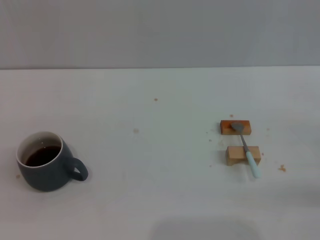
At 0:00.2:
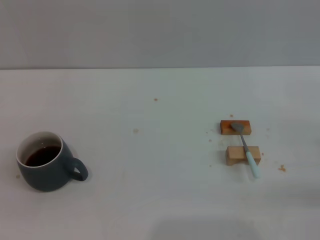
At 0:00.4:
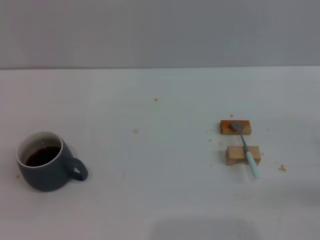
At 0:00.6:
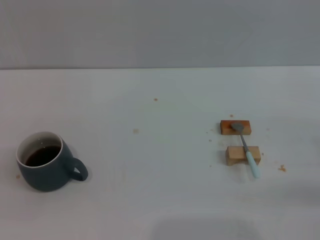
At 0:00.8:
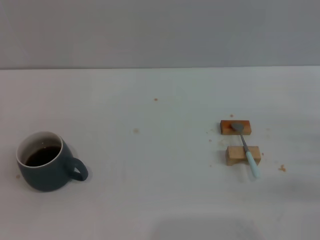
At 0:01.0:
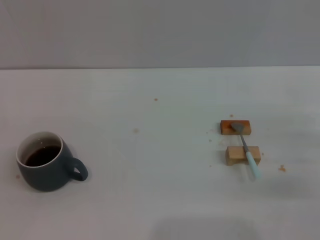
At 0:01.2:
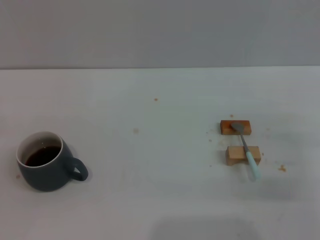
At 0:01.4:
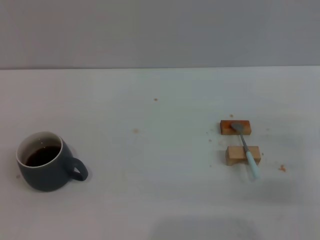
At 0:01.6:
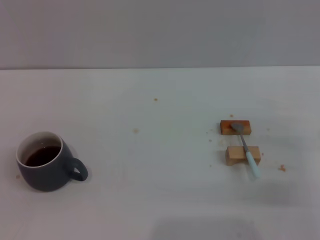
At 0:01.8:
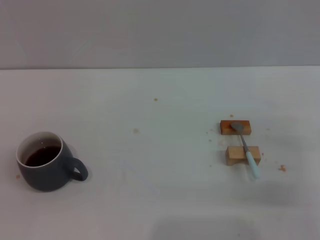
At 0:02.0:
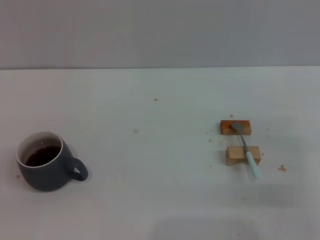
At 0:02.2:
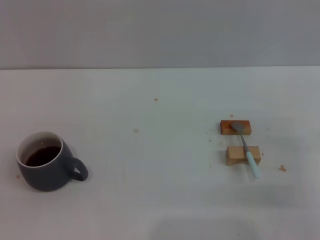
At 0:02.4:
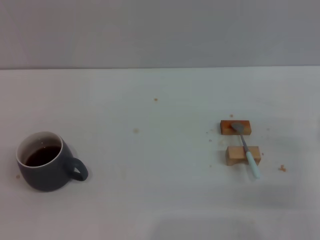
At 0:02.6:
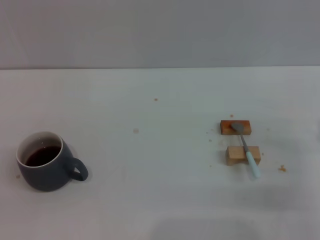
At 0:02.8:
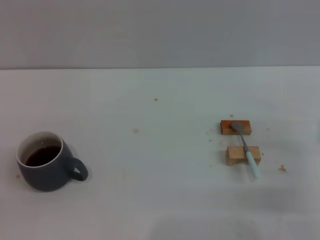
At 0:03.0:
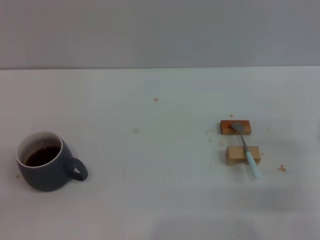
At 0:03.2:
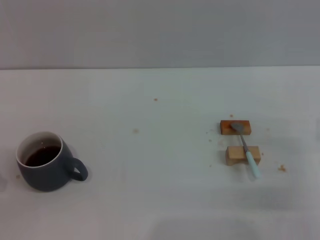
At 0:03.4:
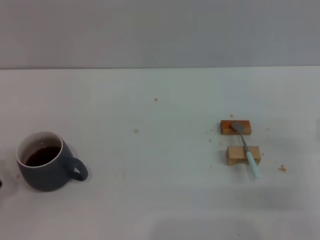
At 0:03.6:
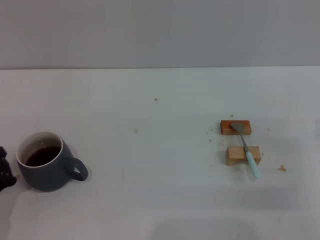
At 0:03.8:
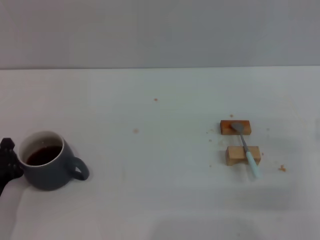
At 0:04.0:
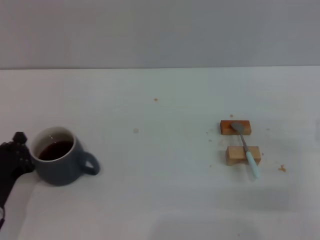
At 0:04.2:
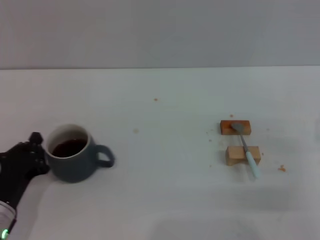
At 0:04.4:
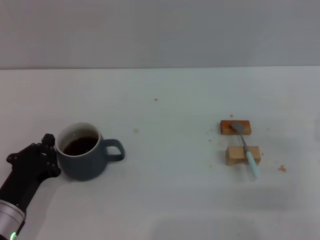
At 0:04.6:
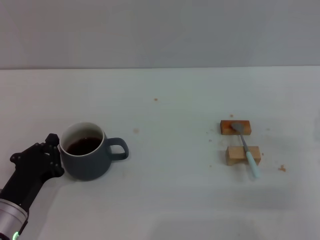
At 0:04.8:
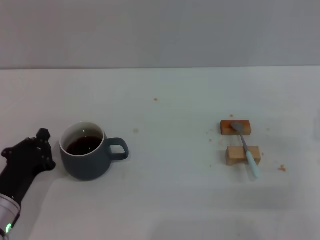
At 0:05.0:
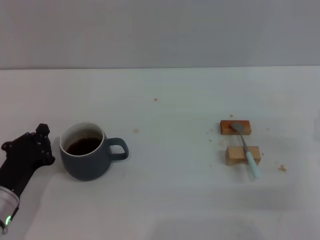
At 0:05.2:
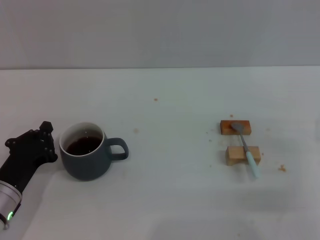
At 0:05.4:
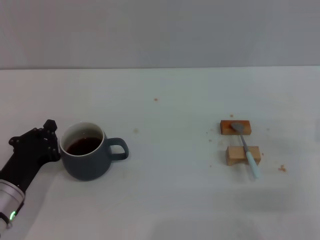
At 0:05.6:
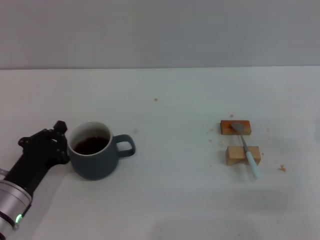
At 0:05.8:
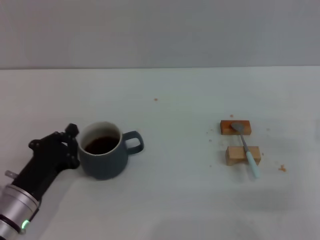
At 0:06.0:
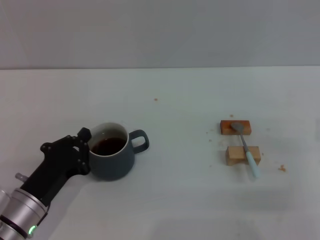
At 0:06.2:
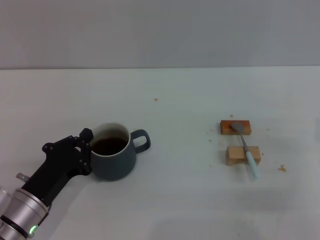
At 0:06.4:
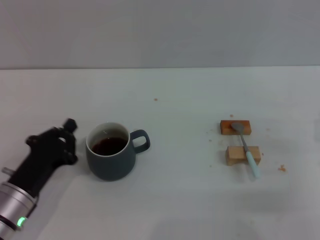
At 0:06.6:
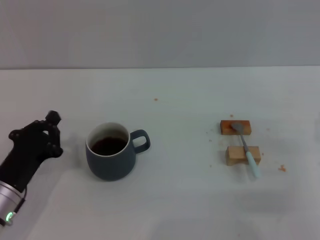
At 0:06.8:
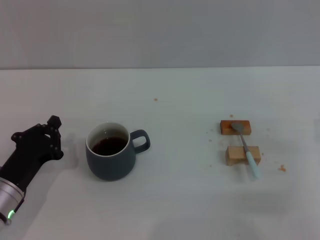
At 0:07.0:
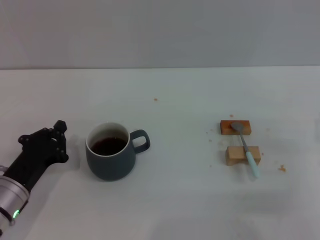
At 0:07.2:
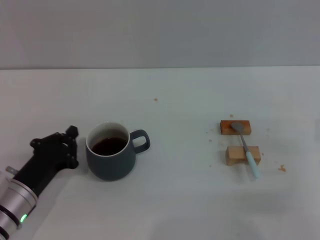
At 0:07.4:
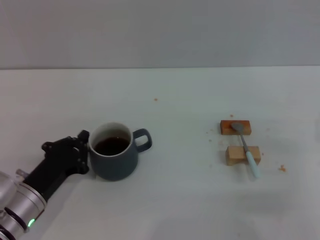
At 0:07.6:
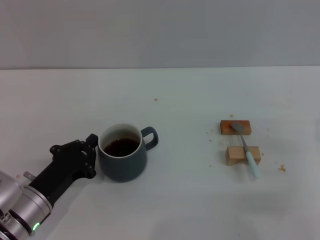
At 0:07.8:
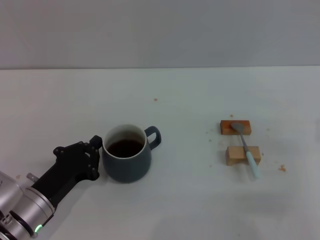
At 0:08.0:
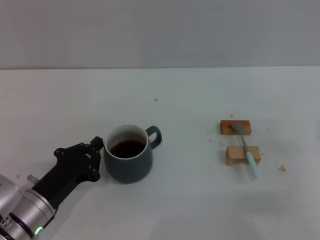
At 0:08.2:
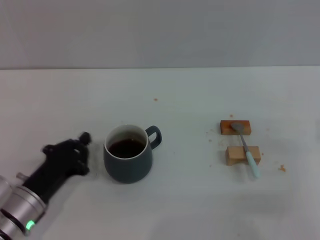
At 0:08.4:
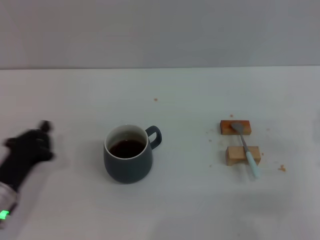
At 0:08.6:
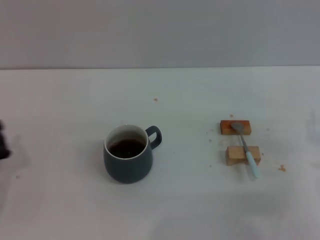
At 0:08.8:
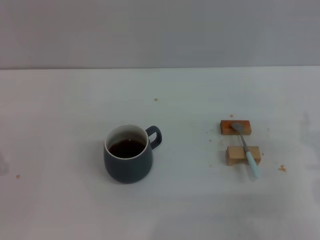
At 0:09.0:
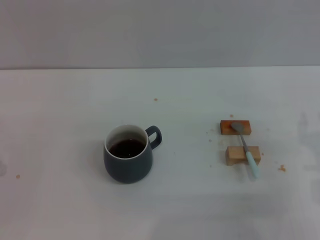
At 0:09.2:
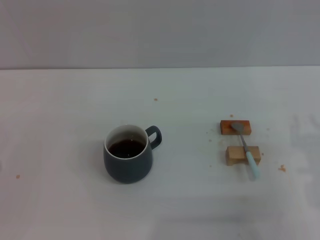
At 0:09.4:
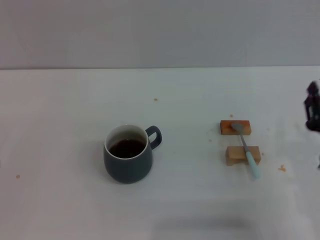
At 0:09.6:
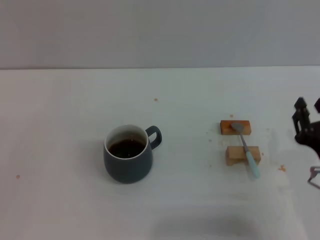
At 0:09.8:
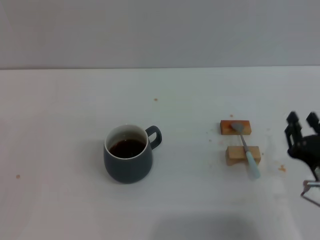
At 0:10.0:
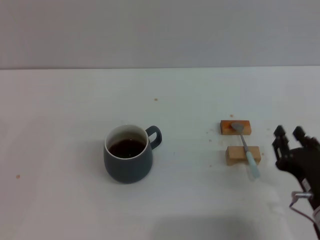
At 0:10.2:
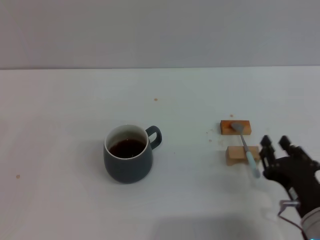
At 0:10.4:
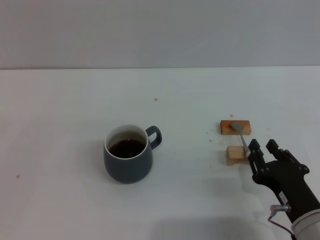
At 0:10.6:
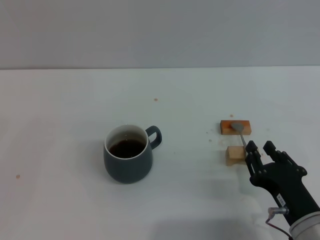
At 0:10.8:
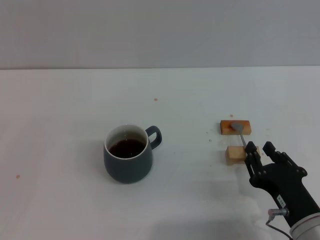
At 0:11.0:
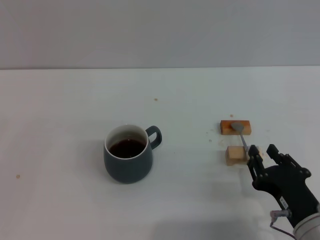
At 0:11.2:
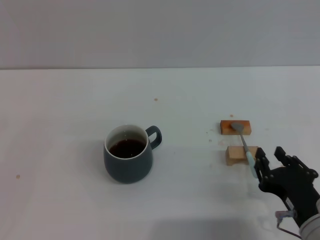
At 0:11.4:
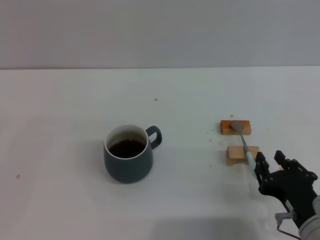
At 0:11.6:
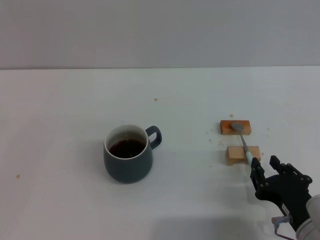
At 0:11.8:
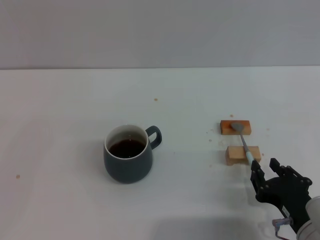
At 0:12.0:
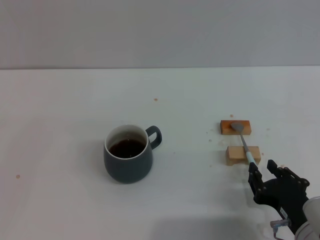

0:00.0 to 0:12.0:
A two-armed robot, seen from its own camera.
Task of the whole recording: Move the grey cup to the center, lift the blue spoon, stir it three times in the cup, and put the spoon into the cup.
Step, 0:00.0 to 0:06.4: Move the cup with coffee to the center of view with the left gripper.
0:03.0 to 0:04.4: The left gripper travels to the right by roughly 10 cm.
0:04.4 to 0:07.6: The grippers stay close to where they were, moving slightly.
0:07.6 to 0:09.0: The left gripper is displaced to the left by some 10 cm.
0:09.0 to 0:10.4: The right gripper travels to the left, backward and downward by some 10 cm.
0:10.4 to 0:12.0: The grippers move only a little.

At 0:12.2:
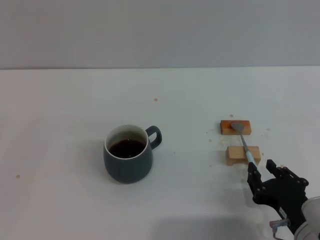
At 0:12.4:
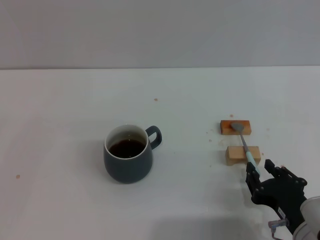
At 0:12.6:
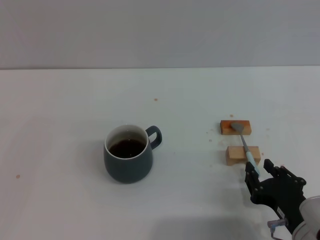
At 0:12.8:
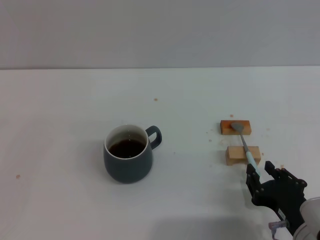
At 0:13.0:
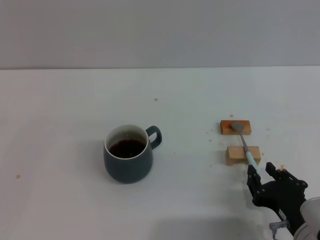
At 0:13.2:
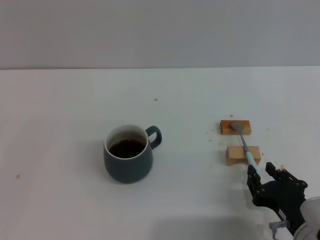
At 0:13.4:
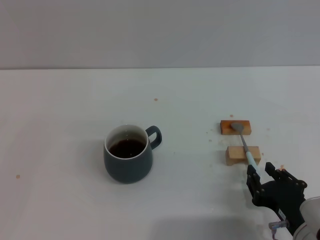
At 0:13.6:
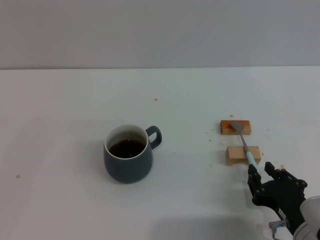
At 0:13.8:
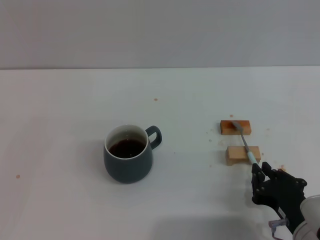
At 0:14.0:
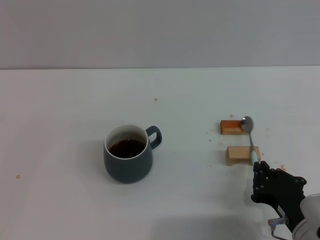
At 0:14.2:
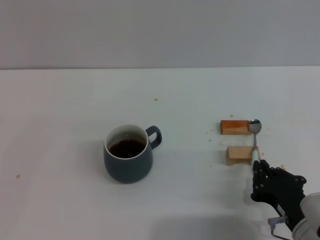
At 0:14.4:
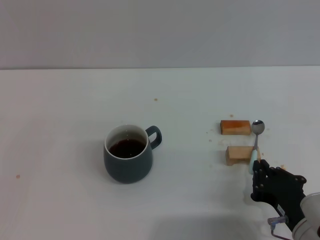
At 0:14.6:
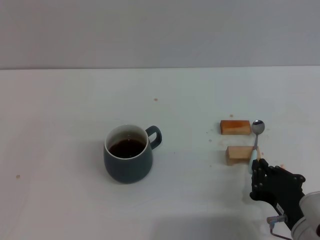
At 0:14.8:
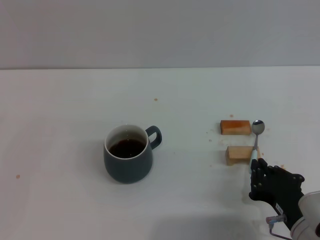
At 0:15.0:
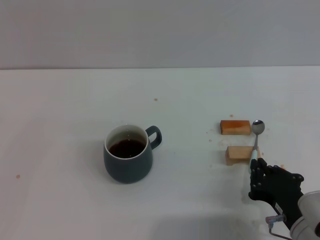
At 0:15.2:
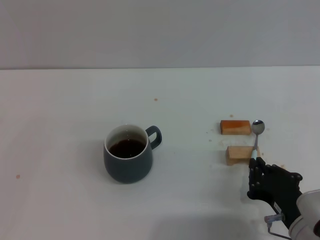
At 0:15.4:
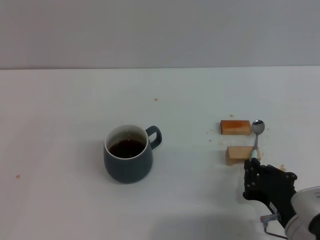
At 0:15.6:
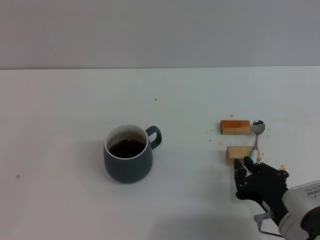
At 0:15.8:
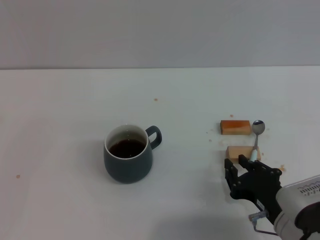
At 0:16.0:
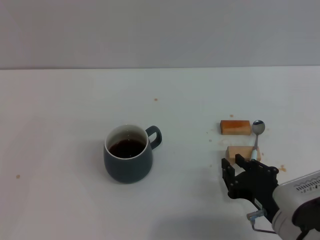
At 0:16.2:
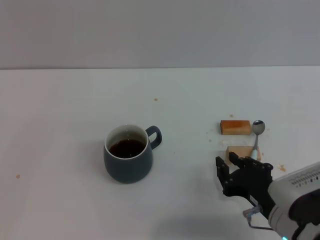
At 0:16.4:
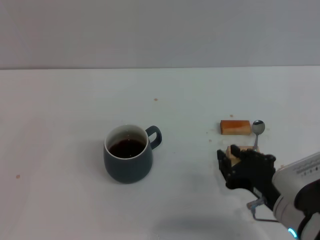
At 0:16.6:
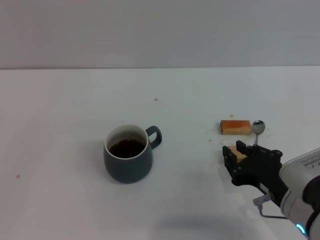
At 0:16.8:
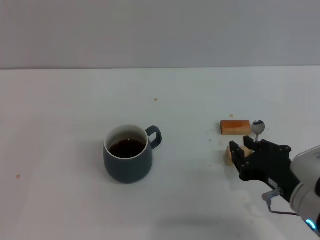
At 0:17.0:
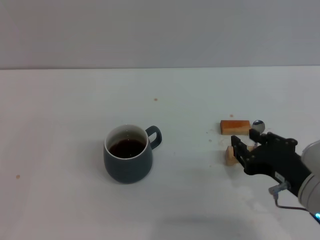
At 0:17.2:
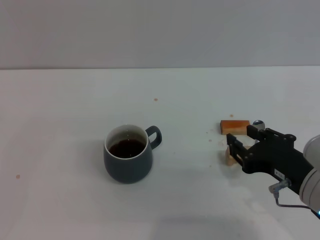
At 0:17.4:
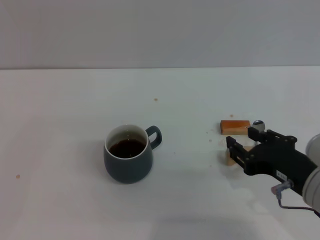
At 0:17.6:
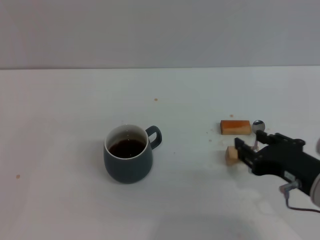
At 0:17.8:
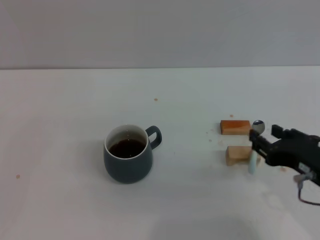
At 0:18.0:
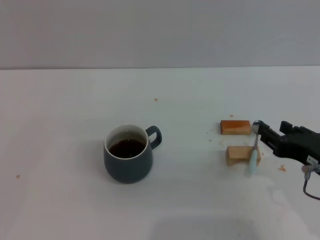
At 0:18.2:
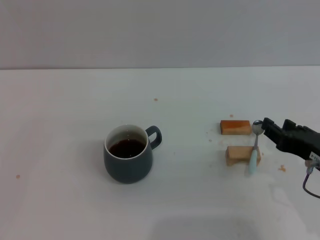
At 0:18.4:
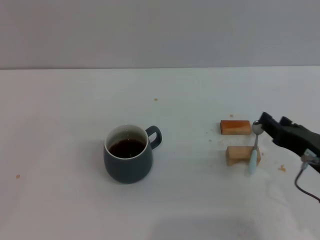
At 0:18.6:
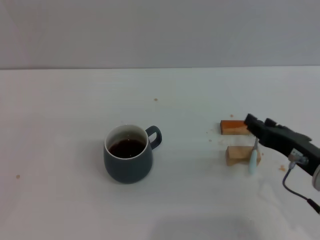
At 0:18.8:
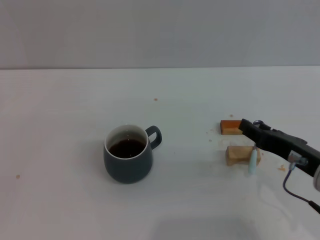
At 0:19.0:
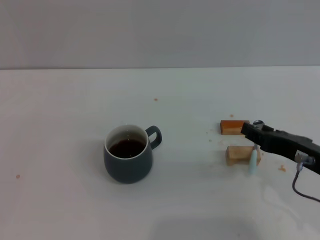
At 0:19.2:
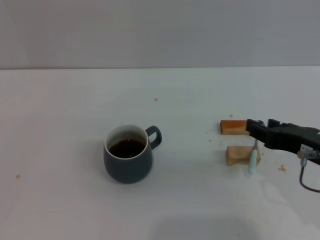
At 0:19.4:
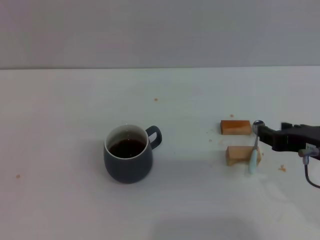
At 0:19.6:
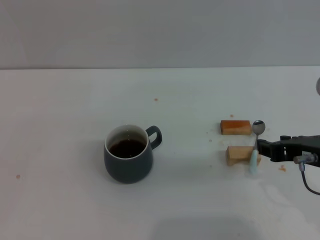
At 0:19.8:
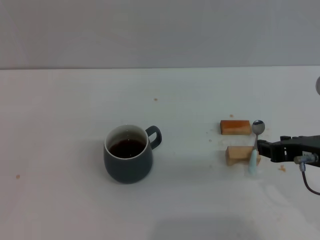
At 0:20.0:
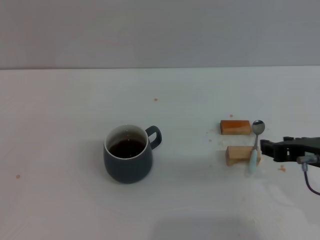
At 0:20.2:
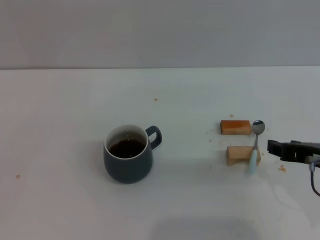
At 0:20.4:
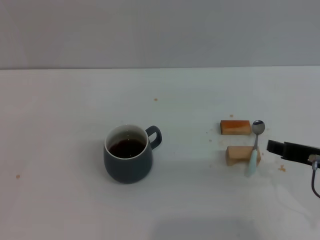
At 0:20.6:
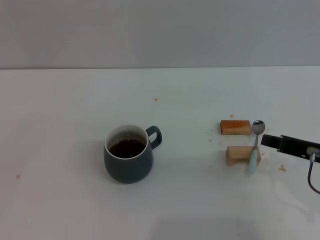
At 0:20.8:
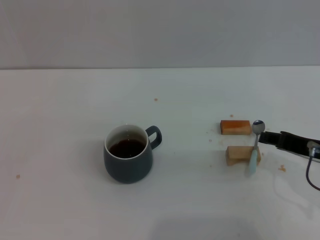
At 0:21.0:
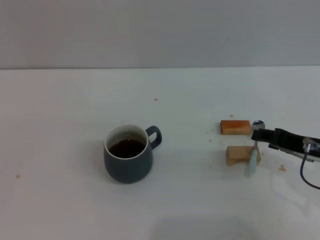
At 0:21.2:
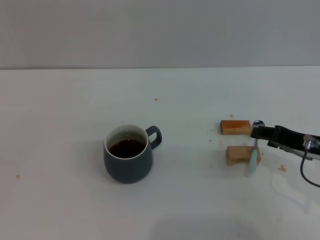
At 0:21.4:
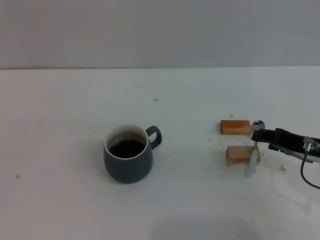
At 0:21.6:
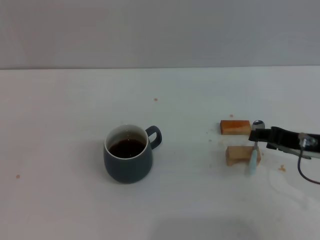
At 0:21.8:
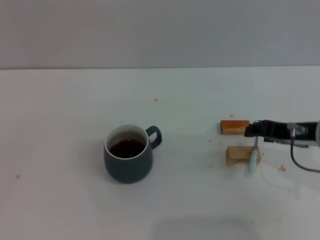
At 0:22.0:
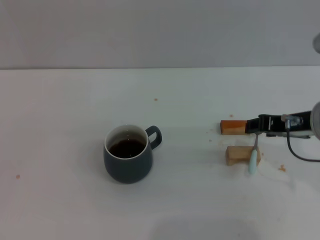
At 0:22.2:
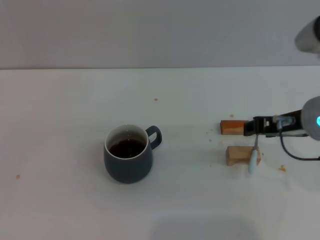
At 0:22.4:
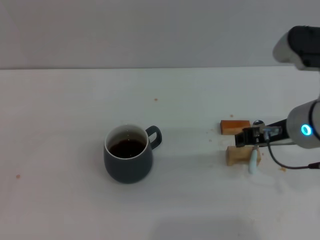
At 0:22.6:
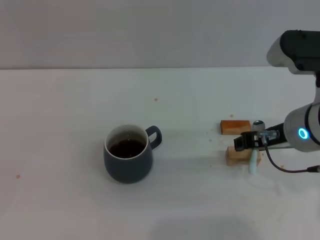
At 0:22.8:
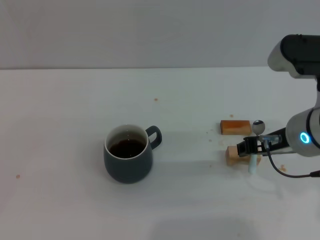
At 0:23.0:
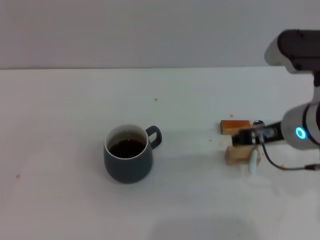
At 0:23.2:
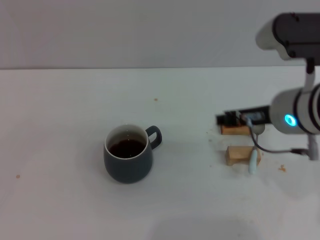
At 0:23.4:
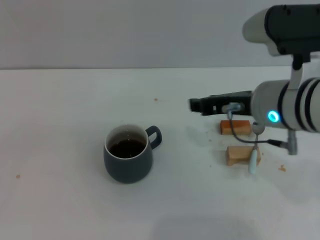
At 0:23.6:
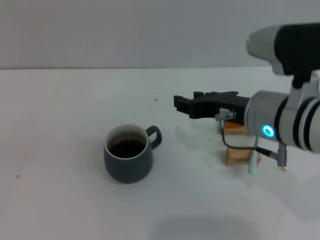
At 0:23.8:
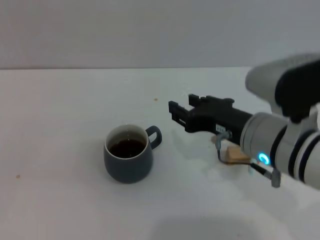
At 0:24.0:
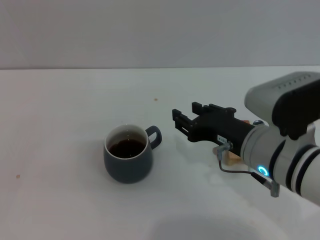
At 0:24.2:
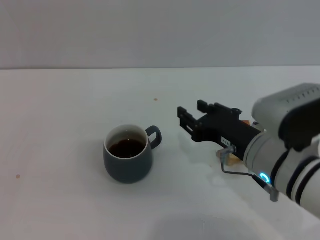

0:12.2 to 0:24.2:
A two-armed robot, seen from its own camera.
Task of the whole recording: Move the grey cup to the center, lift the blue spoon, stir it three times in the cup, and put the spoon into the cup.
0:12.2 to 0:13.8: Both grippers stay about where they are.
0:13.8 to 0:15.2: The right gripper closes.
0:15.2 to 0:16.6: The right gripper ends up roughly 5 cm from where it was, and opens.
0:16.6 to 0:18.2: The right gripper moves approximately 5 cm, and opens its fingers.
0:18.2 to 0:19.8: The right gripper goes about 5 cm upward.
0:19.8 to 0:21.2: The right gripper shifts by some 5 cm.
0:21.2 to 0:22.6: The right gripper goes approximately 5 cm to the left.
0:22.6 to 0:24.2: The right gripper moves downward, approximately 5 cm.
